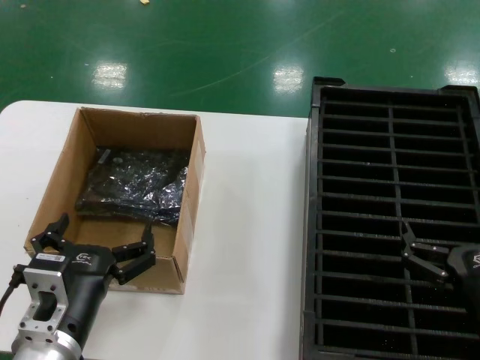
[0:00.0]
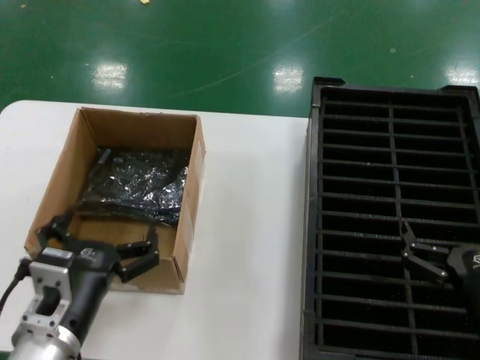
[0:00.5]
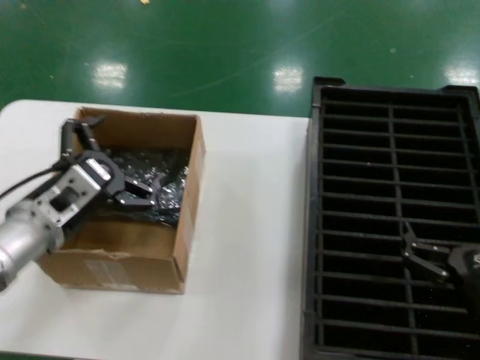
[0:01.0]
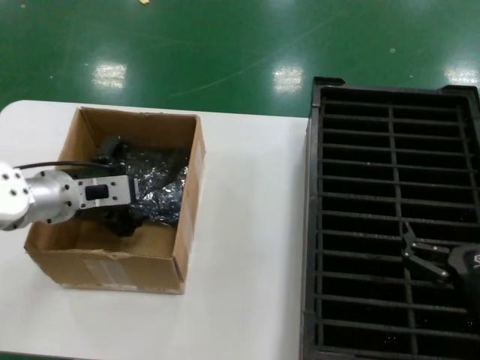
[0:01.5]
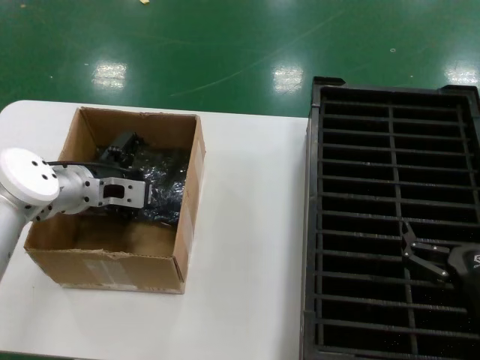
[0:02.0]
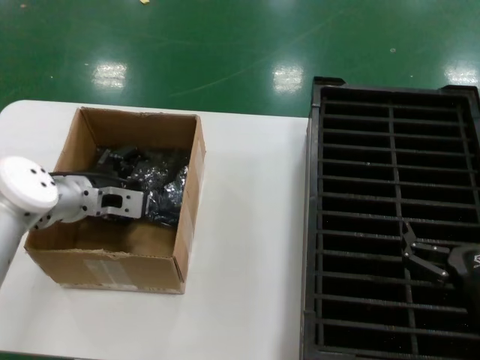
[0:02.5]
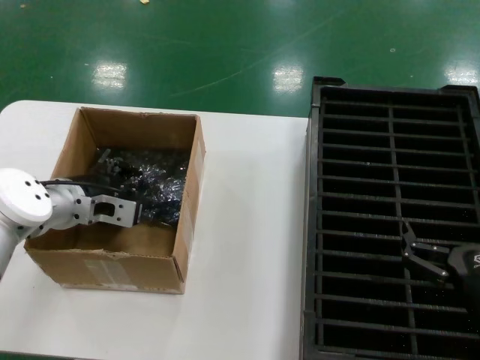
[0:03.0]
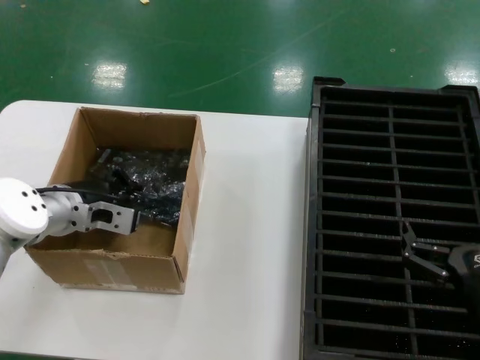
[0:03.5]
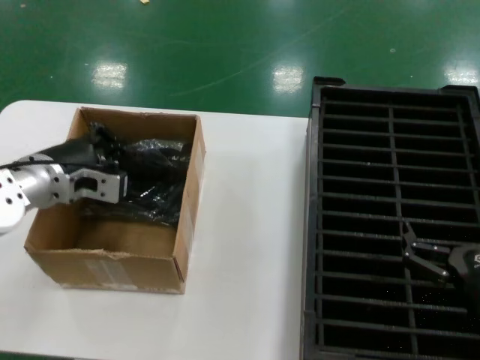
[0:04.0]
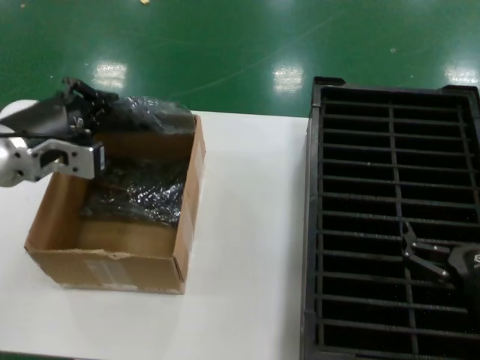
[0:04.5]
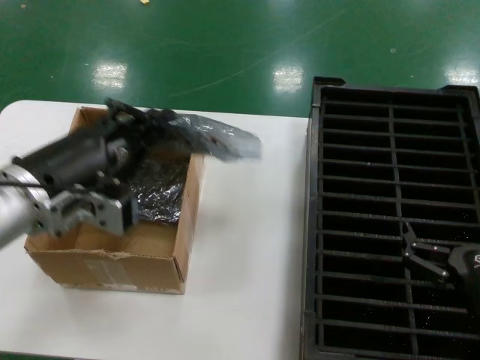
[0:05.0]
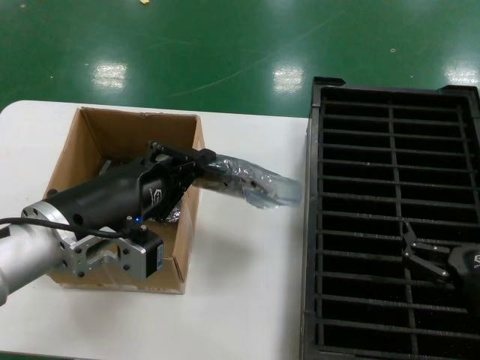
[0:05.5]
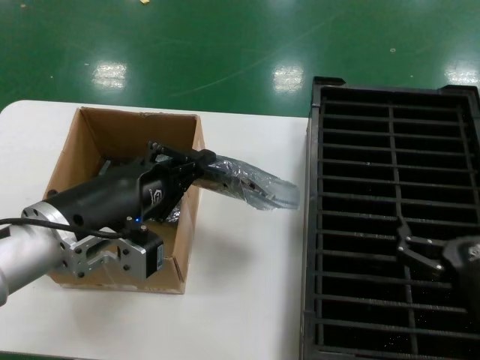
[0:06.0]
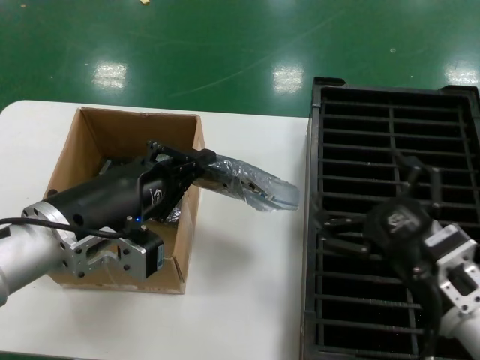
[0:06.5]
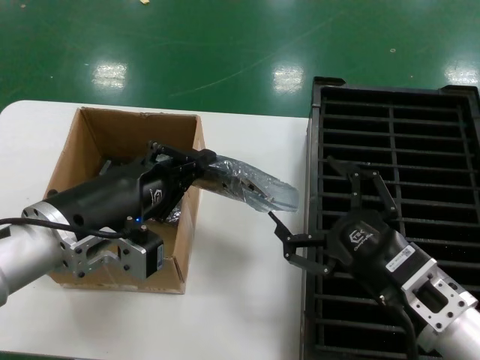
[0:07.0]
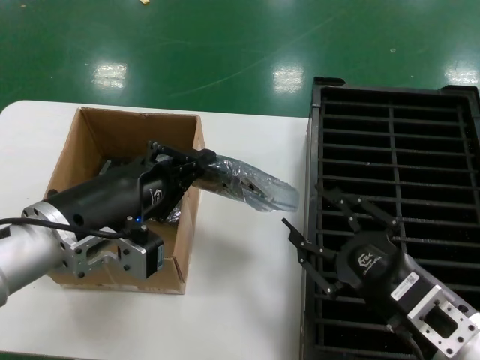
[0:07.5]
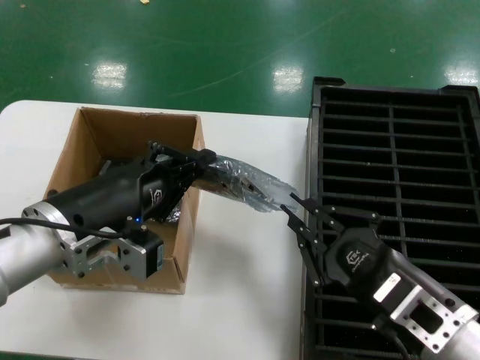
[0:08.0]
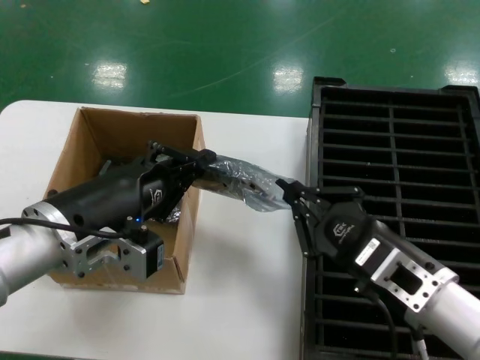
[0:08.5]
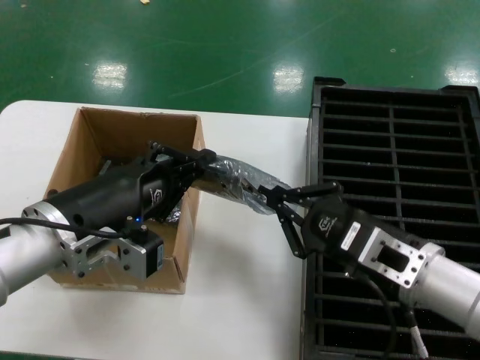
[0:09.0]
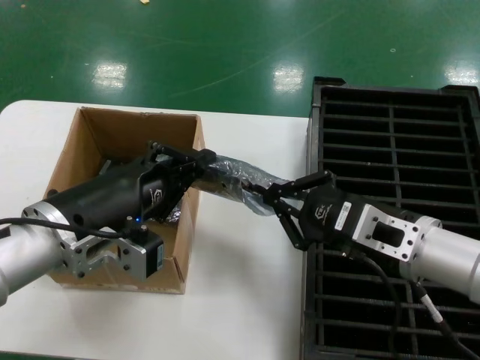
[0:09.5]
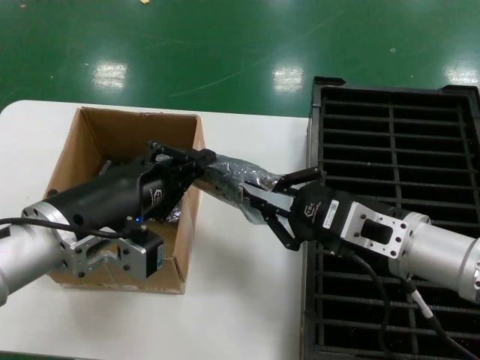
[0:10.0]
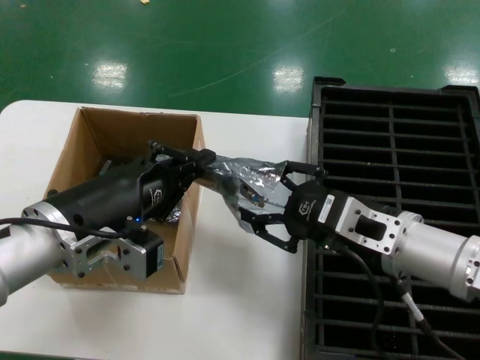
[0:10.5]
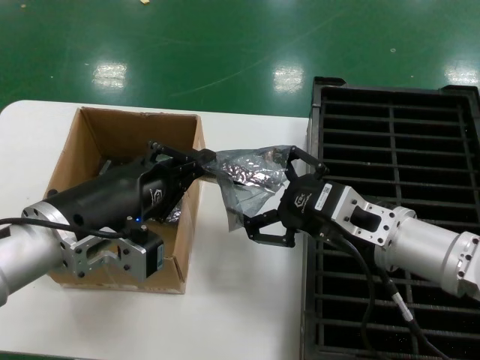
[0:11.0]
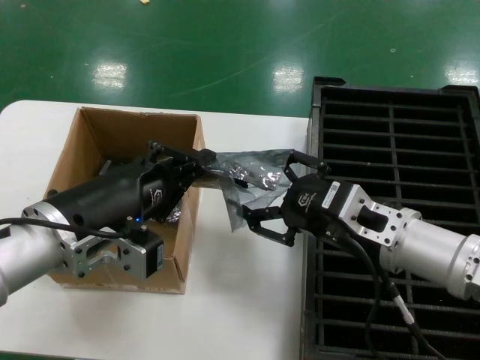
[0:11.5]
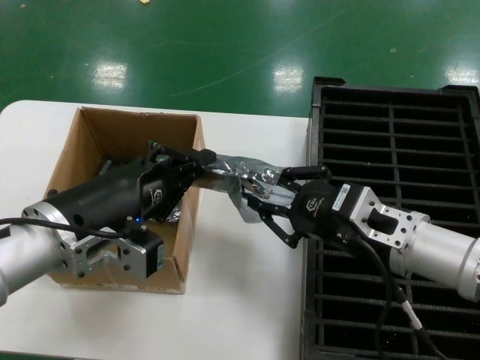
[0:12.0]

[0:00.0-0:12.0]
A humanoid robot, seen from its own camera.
Task of the whole recording: take out graphics card from box remove packaging put into black container.
Step, 0:00.0 to 0:03.5: Grasp the bag.
Step, 0:04.0 to 0:05.5: Lift the bag.
0:00.0 to 0:02.0: The left hand shifts about 25 cm forward and upward.
0:02.0 to 0:04.0: There are only small adjustments of the hands.
0:04.0 to 0:06.0: The left hand goes about 15 cm backward and to the right.
0:06.0 to 0:08.0: The right hand shifts approximately 5 cm to the left.
0:08.0 to 0:10.0: The right hand travels forward and upward by roughly 10 cm.
0:10.0 to 0:12.0: The hands move only a little.

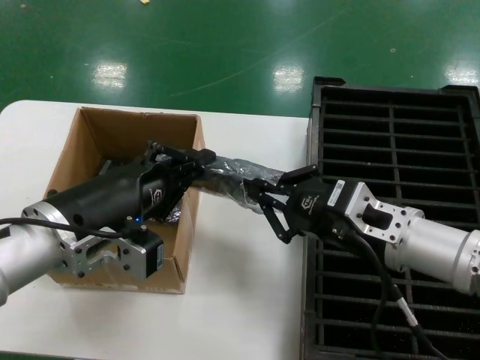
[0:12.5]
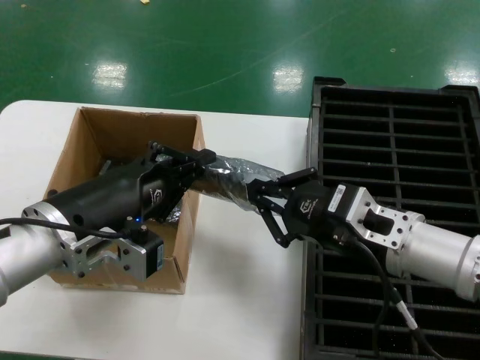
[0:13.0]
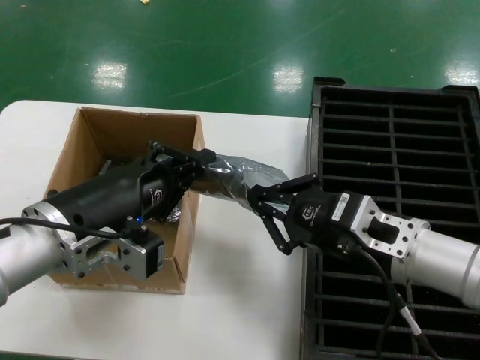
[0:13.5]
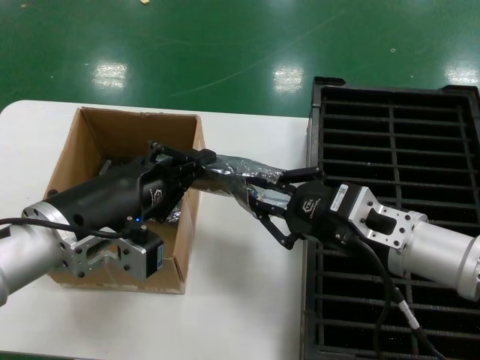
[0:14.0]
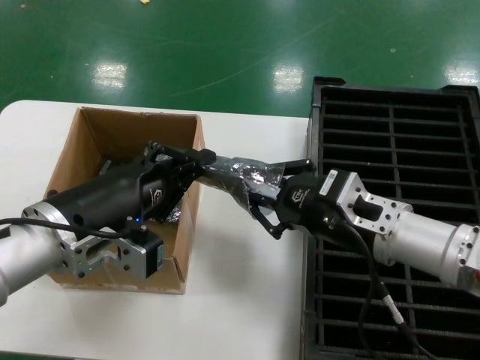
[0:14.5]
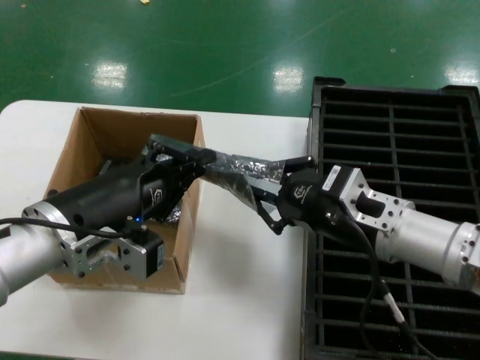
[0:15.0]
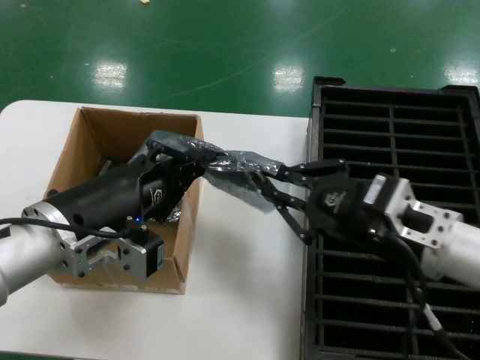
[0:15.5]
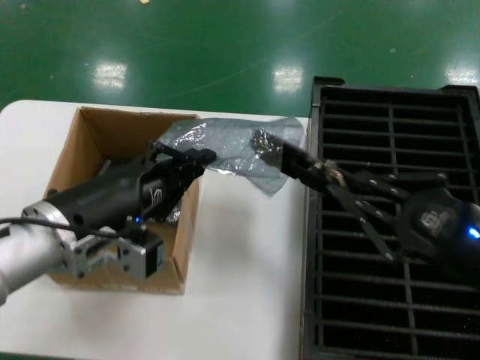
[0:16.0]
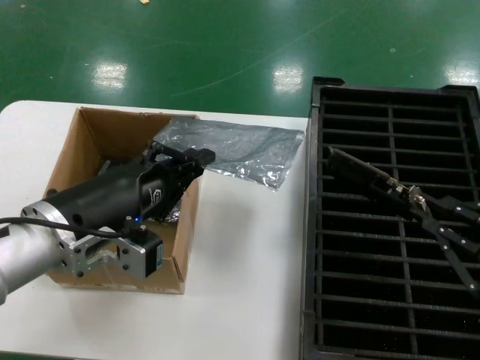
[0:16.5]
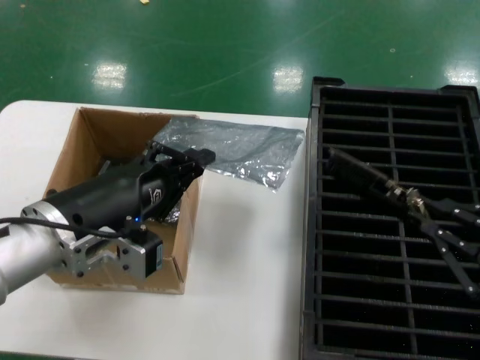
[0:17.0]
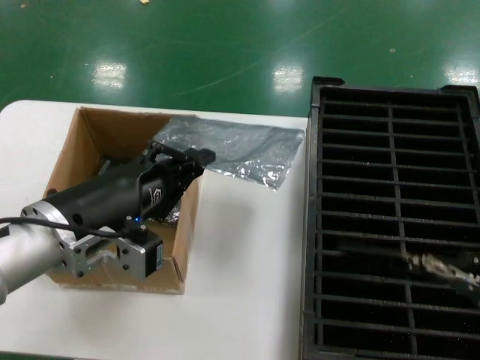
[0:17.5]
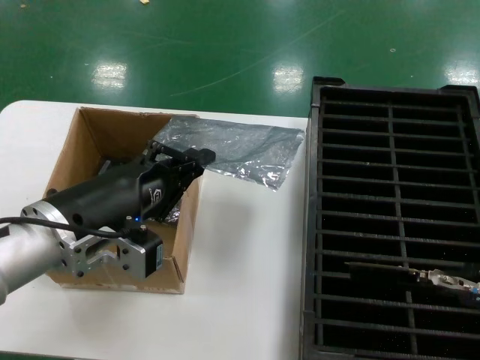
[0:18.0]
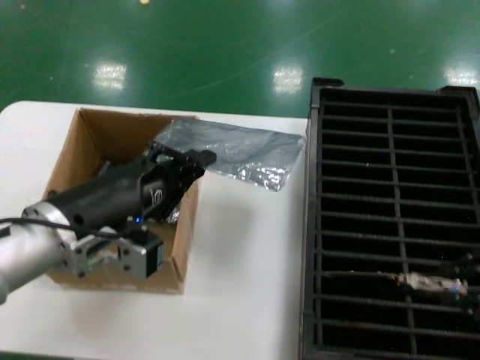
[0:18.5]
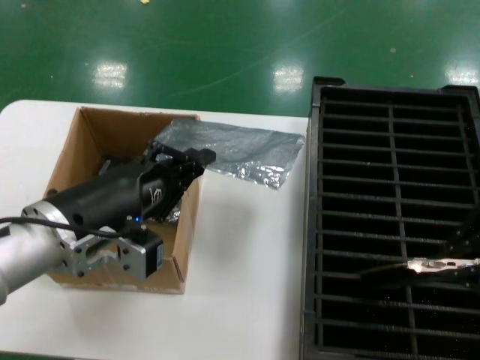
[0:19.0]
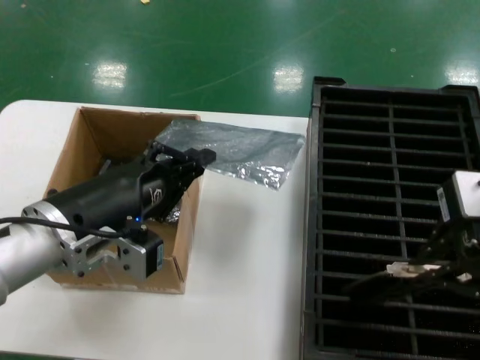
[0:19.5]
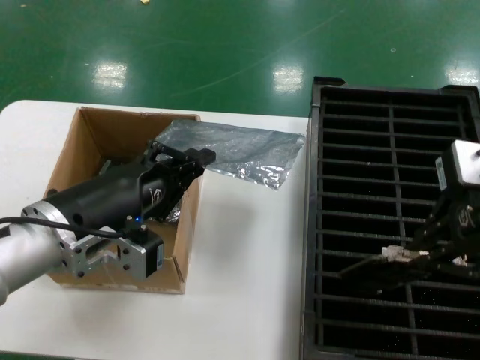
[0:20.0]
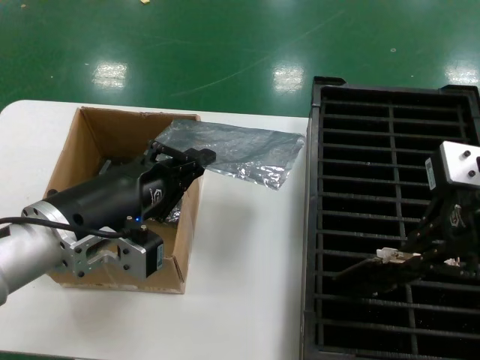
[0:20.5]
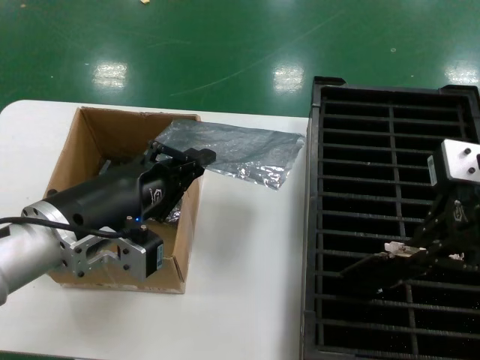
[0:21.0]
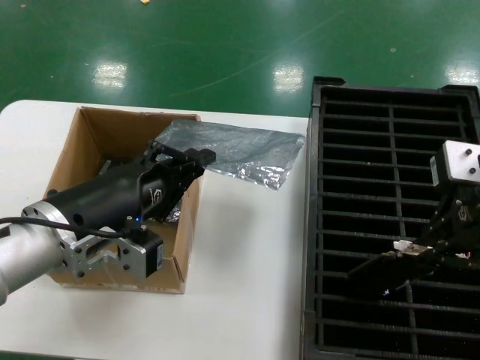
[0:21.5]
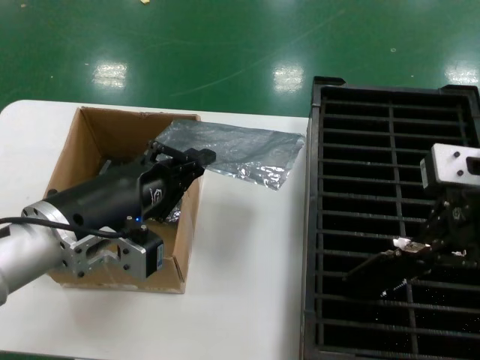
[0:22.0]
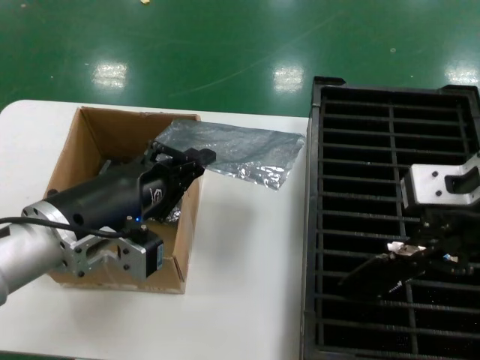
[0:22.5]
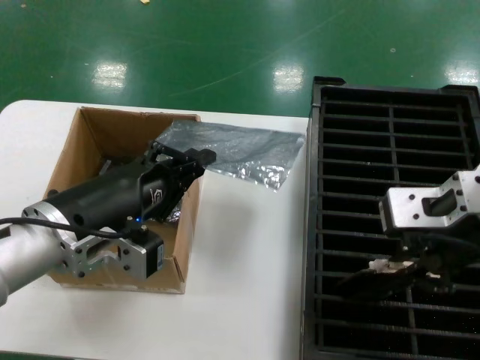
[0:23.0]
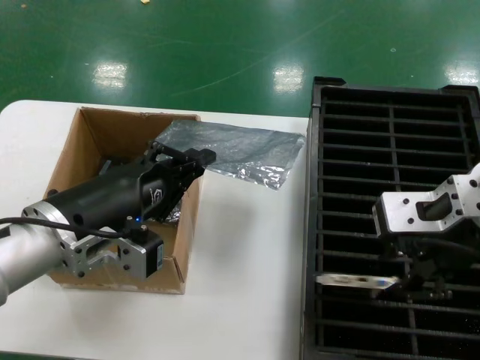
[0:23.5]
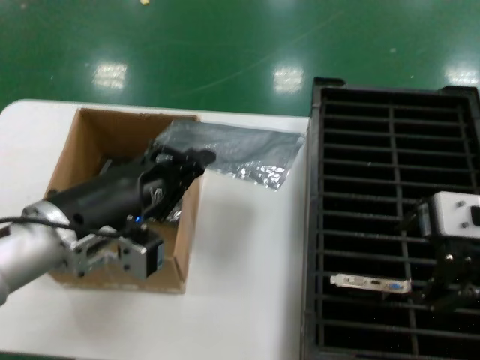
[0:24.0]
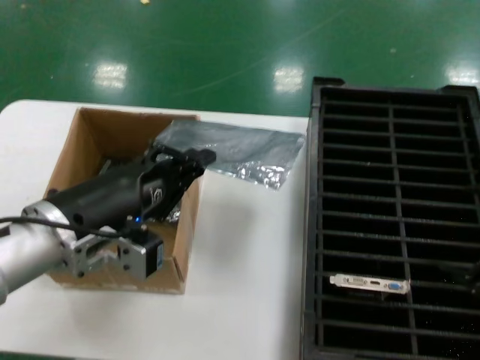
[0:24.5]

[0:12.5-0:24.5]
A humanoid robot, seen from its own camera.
Task of the whole recording: take out graphics card from box remove packaging put into black container.
Step, 0:12.5 to 0:16.0: Take out the hard disk of the bag.
Step, 0:16.5 to 0:23.5: Place the hard disk in the hard disk enclosure.
0:12.5 to 0:14.5: There are only small adjustments of the hands.
0:14.5 to 0:16.5: The right hand moves backward and to the right, some 25 cm.
0:16.5 to 0:18.5: The right hand is displaced upward by about 10 cm.
0:18.5 to 0:20.5: The right hand goes approximately 15 cm to the left, forward and upward.
0:20.5 to 0:22.5: There are only small adjustments of the hands.
0:22.5 to 0:24.5: The right hand is displaced to the right, downward and backward by some 15 cm.

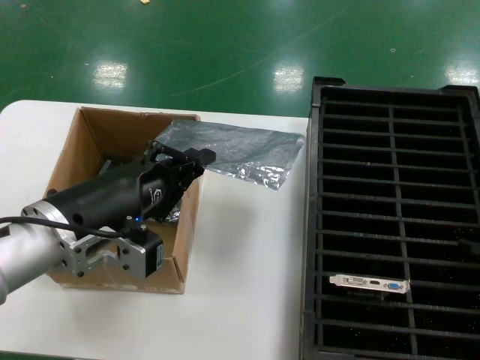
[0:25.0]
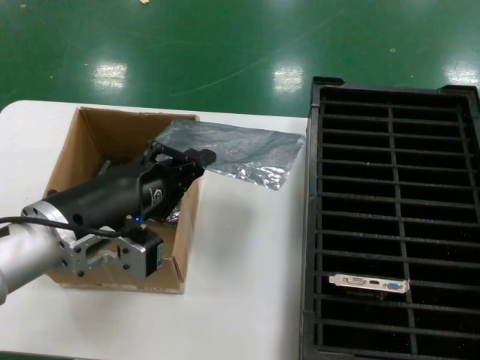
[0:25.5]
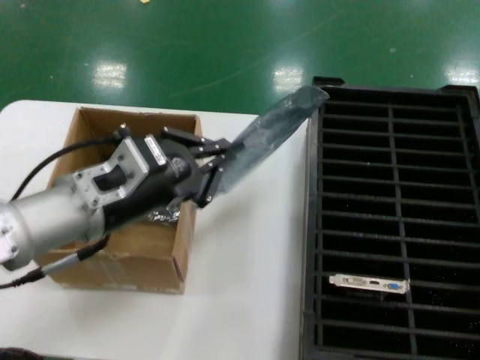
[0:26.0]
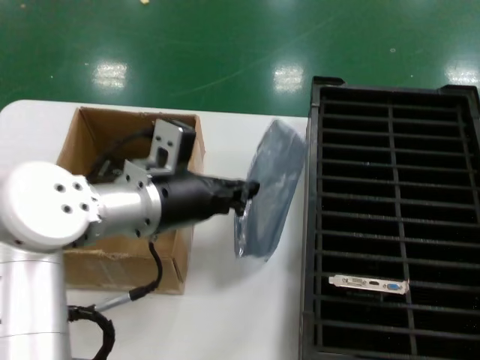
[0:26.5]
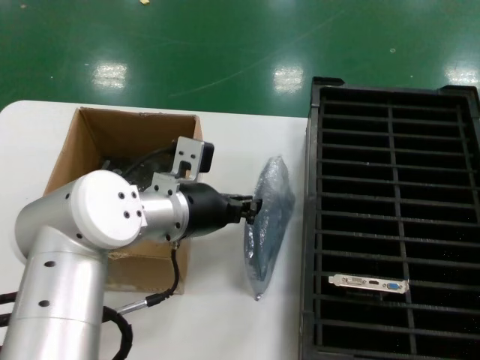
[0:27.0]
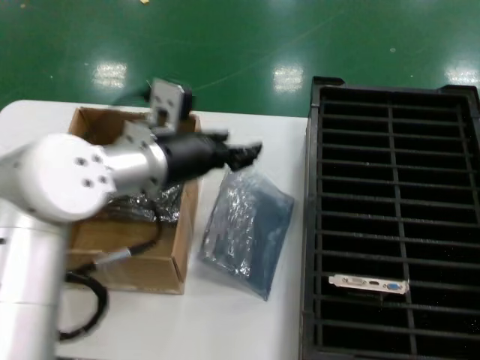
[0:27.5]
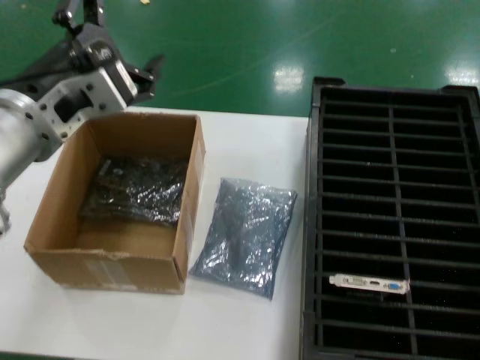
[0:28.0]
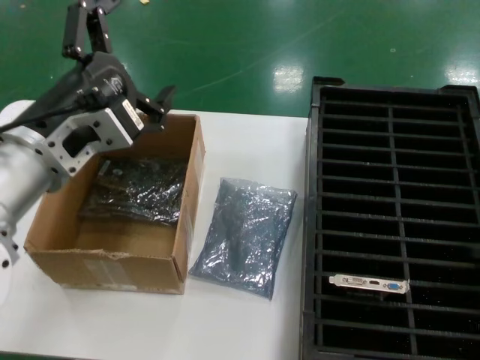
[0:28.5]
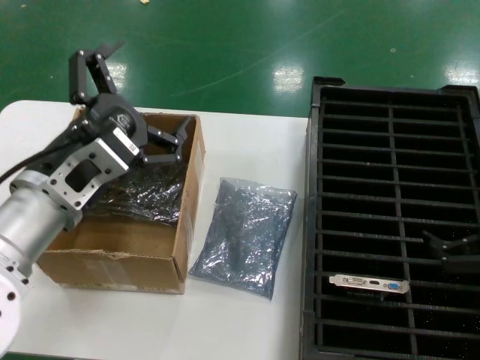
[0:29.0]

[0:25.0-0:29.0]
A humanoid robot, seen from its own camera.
Task of the whole recording: take out graphics card from box remove packaging put into black container.
Step, 0:25.0 to 0:27.5: Place the down the bag.
0:25.0 to 0:27.0: The left hand shifts approximately 15 cm forward and to the right.
0:27.0 to 0:29.0: The left hand travels backward and to the left by about 10 cm, and moves some 10 cm upward and comes back. Meanwhile the right hand is displaced downward and to the left by roughly 10 cm.
